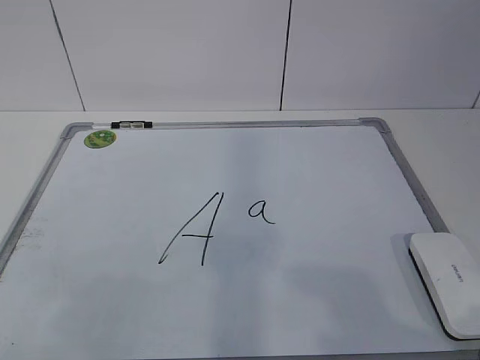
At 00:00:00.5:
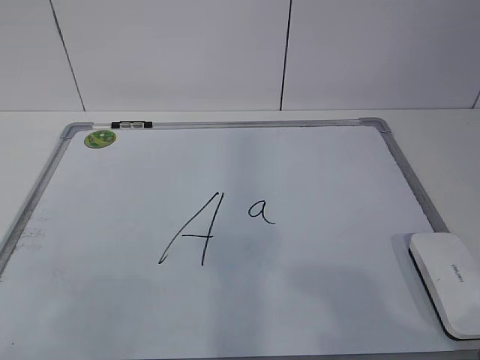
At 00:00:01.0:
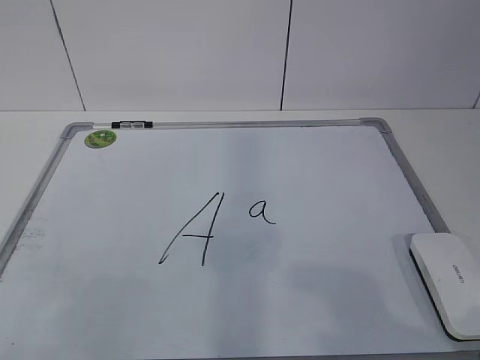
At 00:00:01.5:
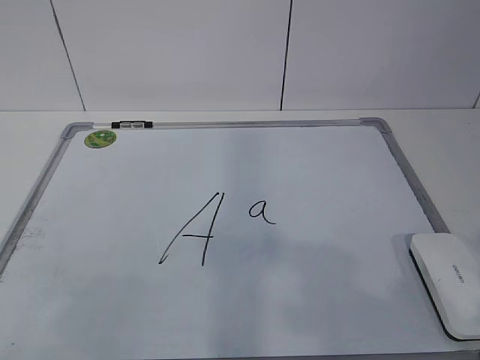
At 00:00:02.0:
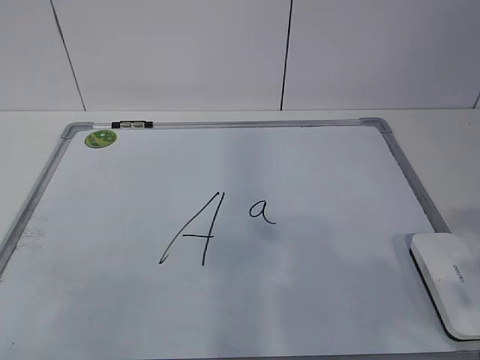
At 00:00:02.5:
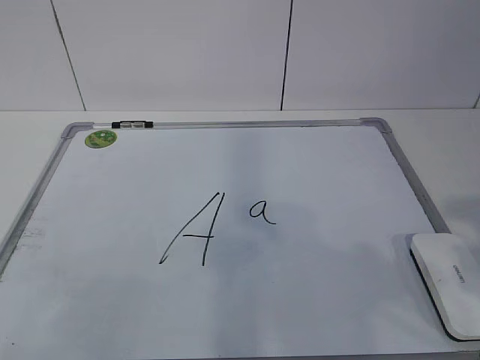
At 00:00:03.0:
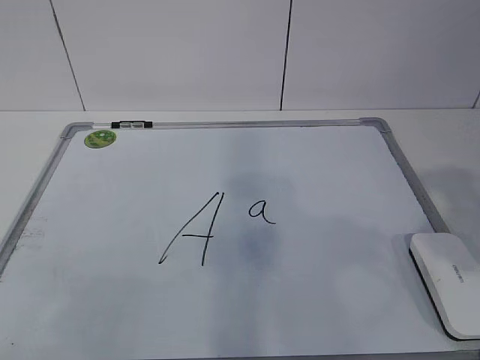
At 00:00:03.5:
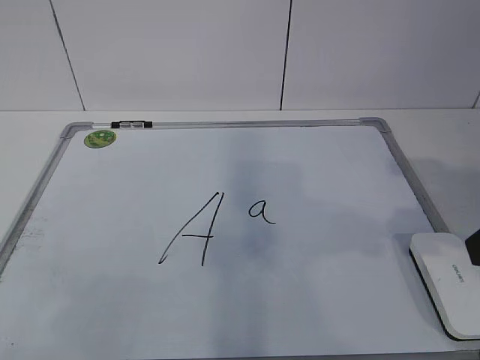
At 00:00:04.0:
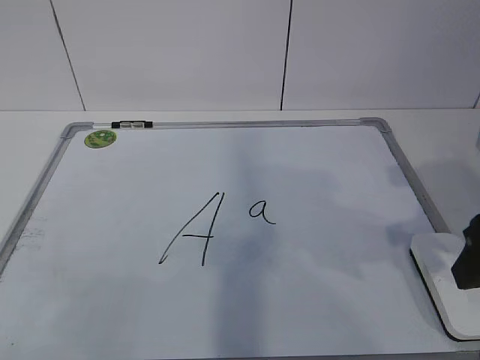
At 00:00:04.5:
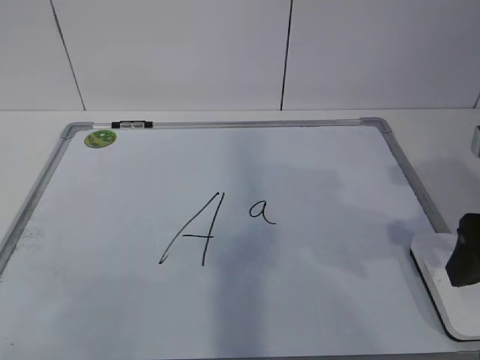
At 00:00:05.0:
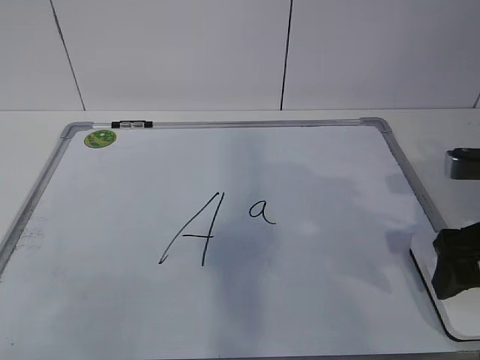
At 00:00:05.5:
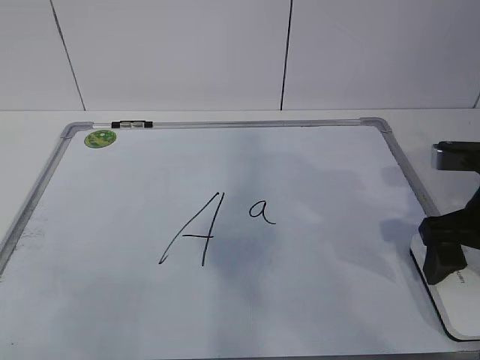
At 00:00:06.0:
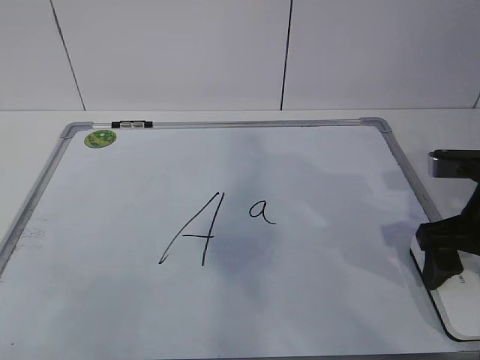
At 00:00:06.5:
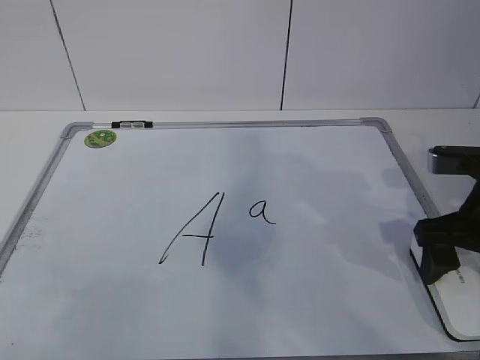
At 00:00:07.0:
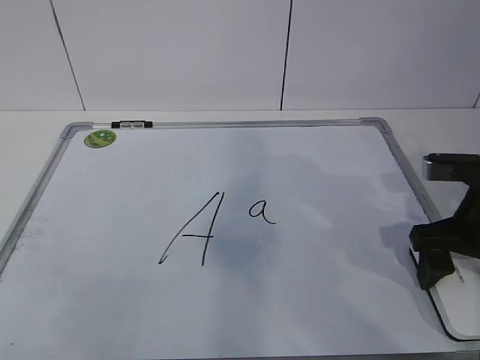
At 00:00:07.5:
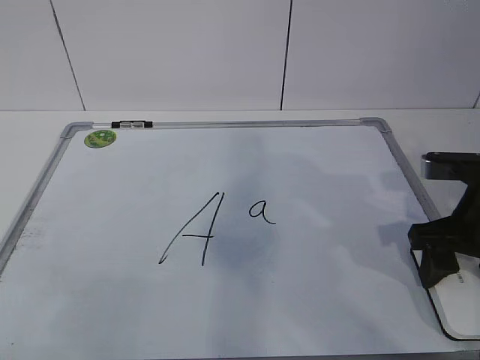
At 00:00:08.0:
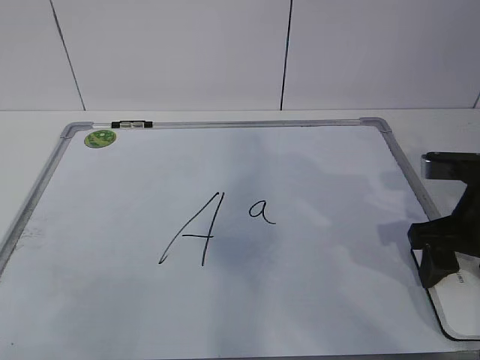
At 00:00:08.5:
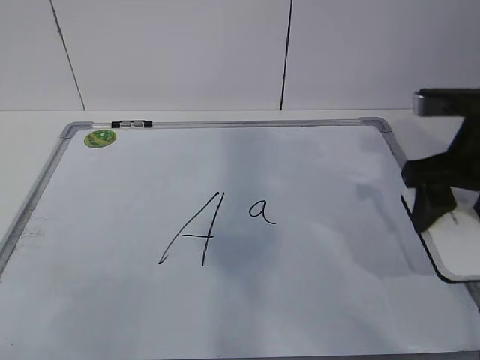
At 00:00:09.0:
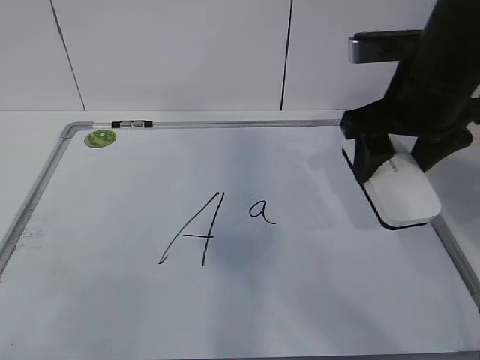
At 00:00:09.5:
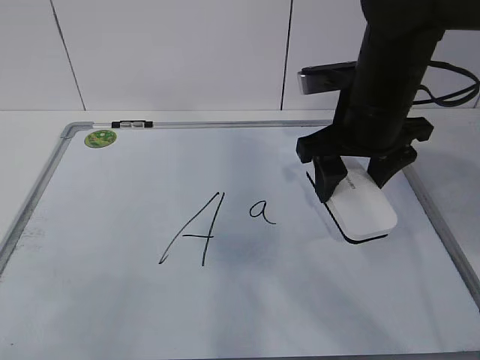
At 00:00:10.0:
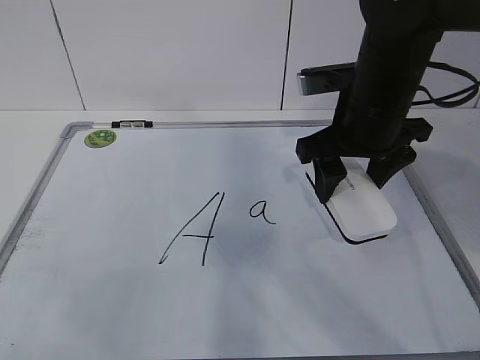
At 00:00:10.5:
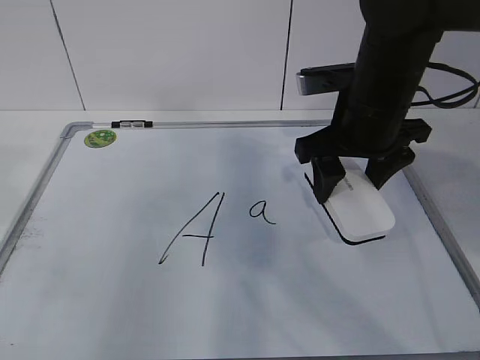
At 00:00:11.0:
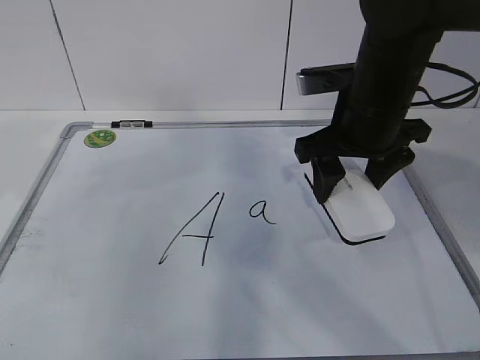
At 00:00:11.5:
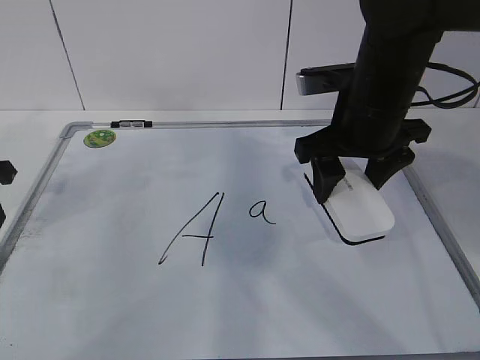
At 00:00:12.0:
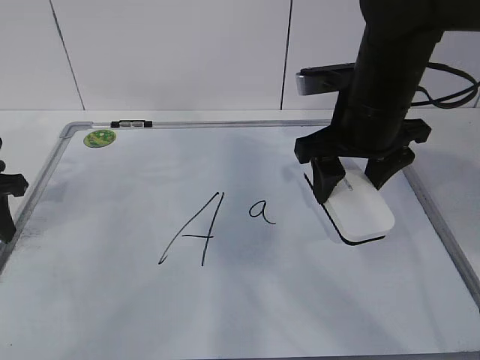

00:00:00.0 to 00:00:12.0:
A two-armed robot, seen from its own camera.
Task of the whole recording: pick up the eraser on the blackboard and erase the letter "a".
Step, 00:00:00.0 to 00:00:06.5: Grab the eraser with your right hand.
Step, 00:00:07.0 to 00:00:10.5: Hold the drawing board steady with your left hand.
00:00:02.0 to 00:00:04.0: The right gripper shifts about 15 cm forward.
00:00:04.0 to 00:00:06.0: The right gripper shifts some 10 cm forward and downward, and opens up.
00:00:06.0 to 00:00:08.0: The right gripper closes up.
00:00:08.0 to 00:00:10.0: The right gripper heads to the left, upward and forward, covering roughly 15 cm.
00:00:10.0 to 00:00:12.0: The left gripper is displaced forward by about 35 cm.

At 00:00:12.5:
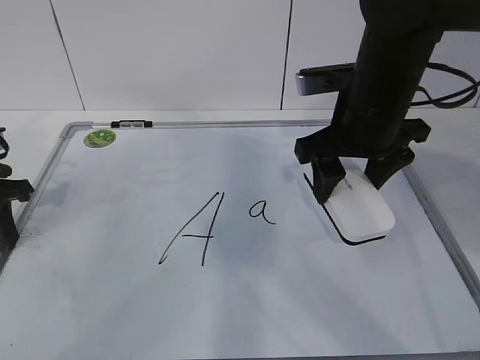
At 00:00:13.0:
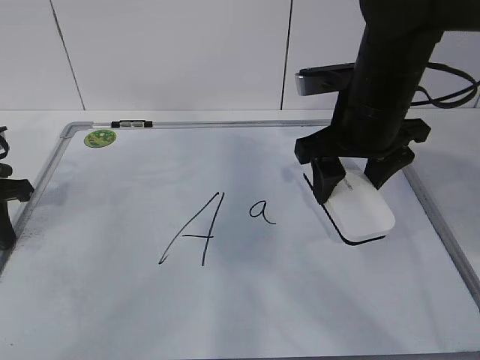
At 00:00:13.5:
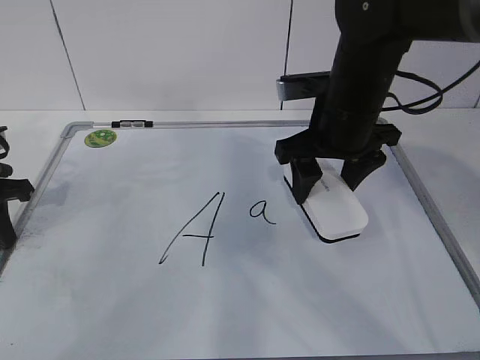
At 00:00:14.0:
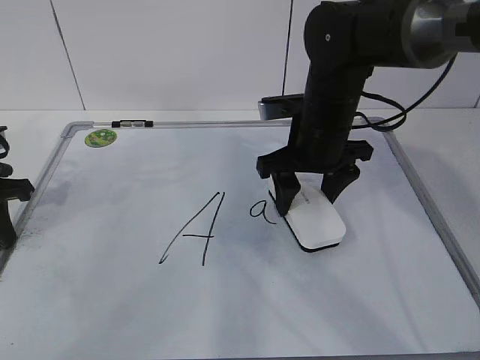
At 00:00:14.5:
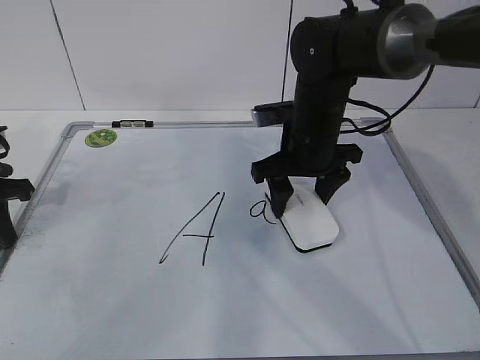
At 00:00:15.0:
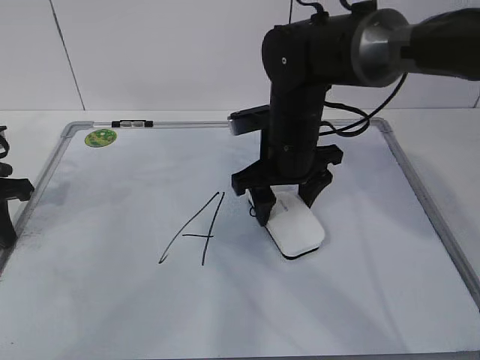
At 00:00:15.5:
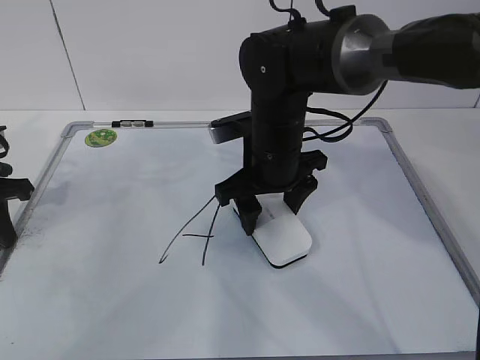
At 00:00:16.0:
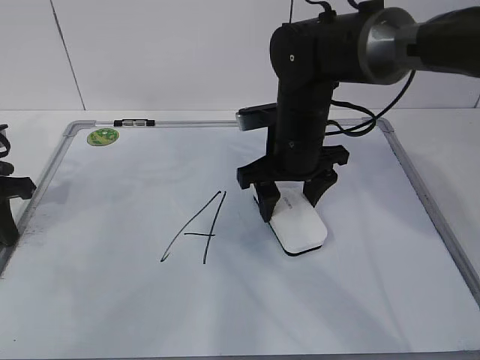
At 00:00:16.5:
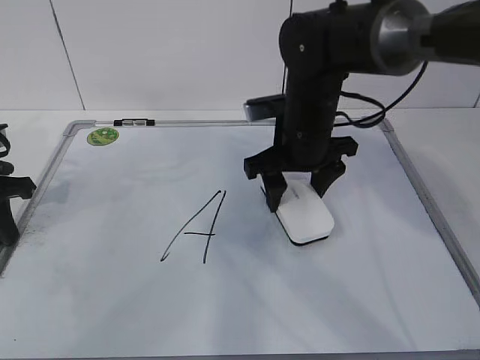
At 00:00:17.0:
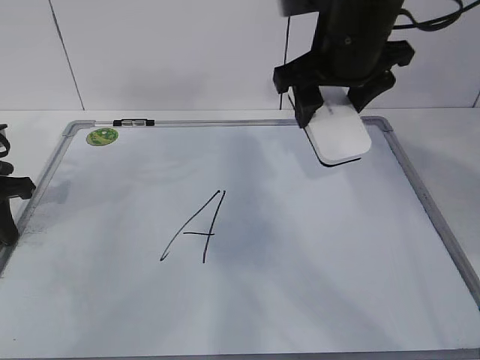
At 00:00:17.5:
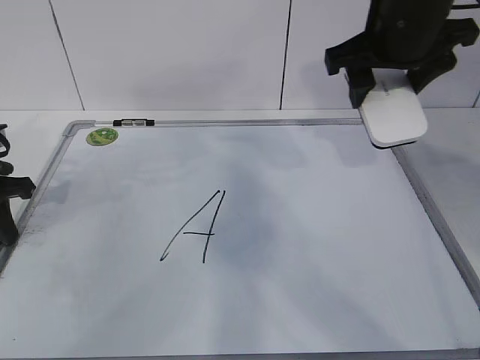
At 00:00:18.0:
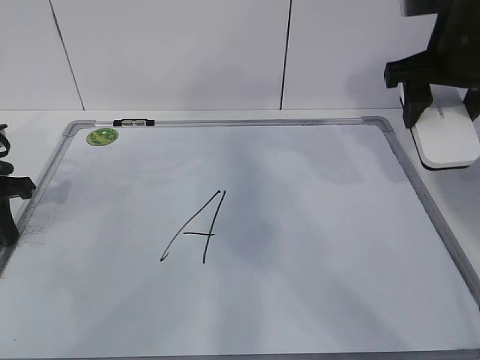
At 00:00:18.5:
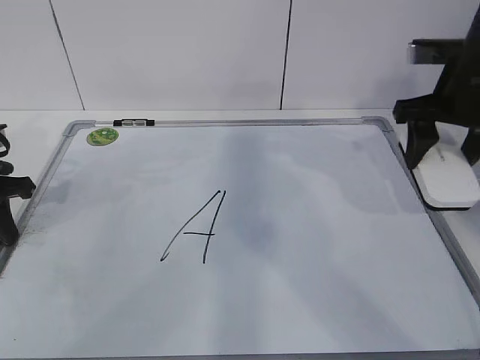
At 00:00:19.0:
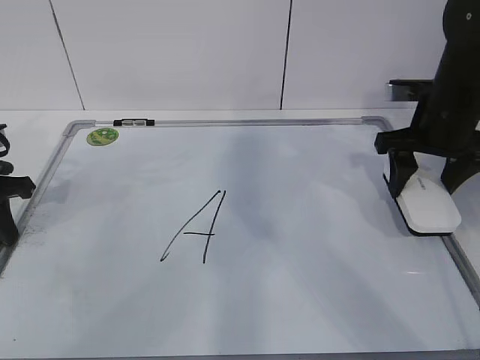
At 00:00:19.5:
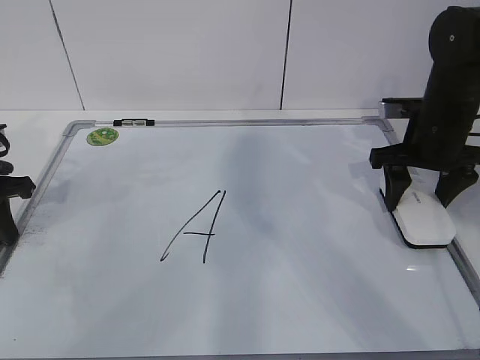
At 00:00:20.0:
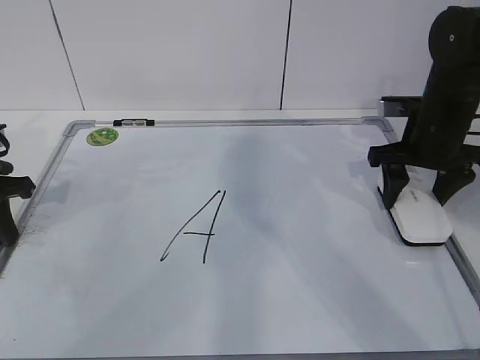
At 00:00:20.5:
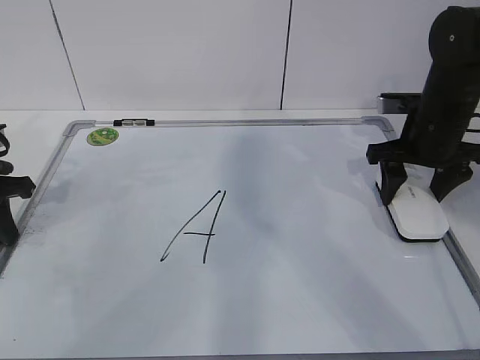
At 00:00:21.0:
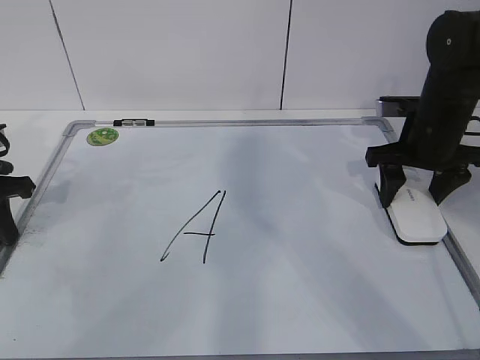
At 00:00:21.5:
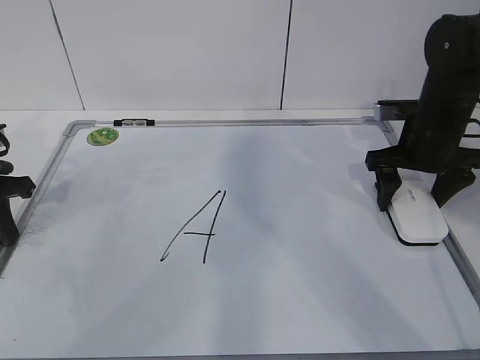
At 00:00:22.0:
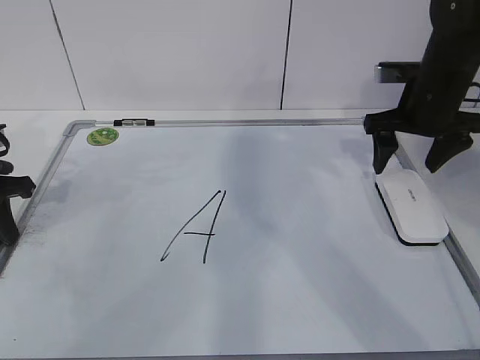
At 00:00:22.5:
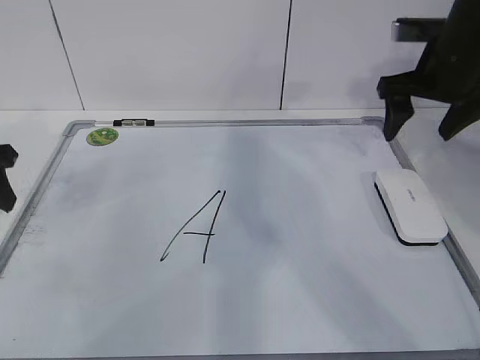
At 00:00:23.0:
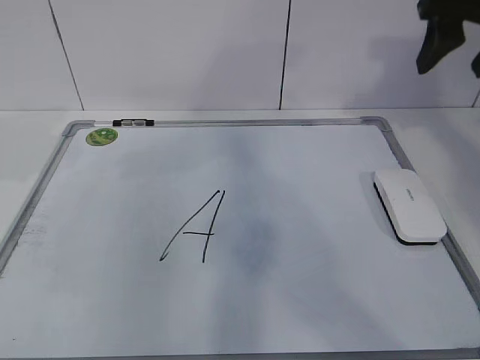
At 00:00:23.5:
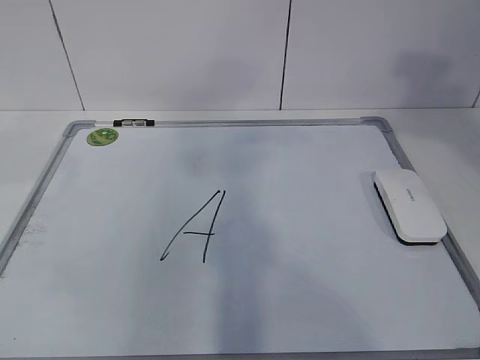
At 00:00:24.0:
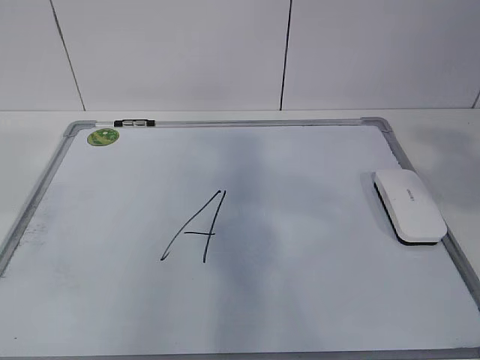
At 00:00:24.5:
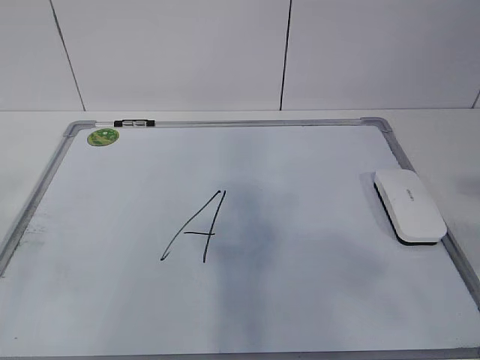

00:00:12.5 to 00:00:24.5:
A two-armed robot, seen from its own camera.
Task of the whole recording: pick up the eraser on the blackboard and erase the letter "a".
Step, 00:00:14.0 to 00:00:17.5: Put down the eraser with your right hand.
00:00:12.5 to 00:00:14.5: The right gripper goes approximately 10 cm downward and forward. Meanwhile the left gripper closes up.
00:00:14.5 to 00:00:16.5: There are only small adjustments of the grippers.
00:00:16.5 to 00:00:18.5: The right gripper travels to the right and upward by about 20 cm.
00:00:18.5 to 00:00:20.5: The right gripper shifts approximately 5 cm downward.
00:00:20.5 to 00:00:22.5: The left gripper opens; the right gripper heads upward, covering approximately 5 cm, and opens up.
00:00:22.5 to 00:00:24.5: The right gripper travels backward by approximately 35 cm, and closes its fingers, while the left gripper heads backward and upward, covering roughly 35 cm.
